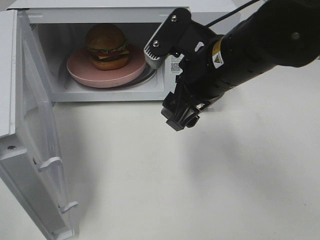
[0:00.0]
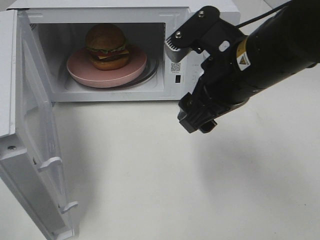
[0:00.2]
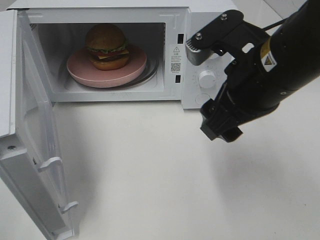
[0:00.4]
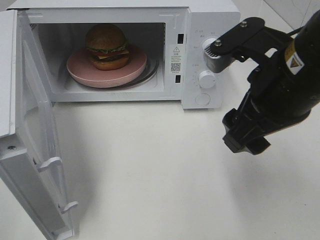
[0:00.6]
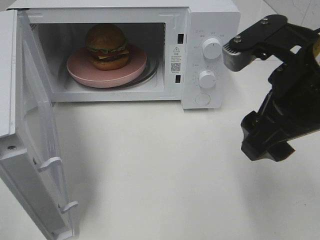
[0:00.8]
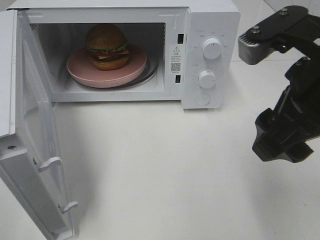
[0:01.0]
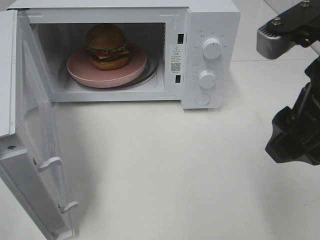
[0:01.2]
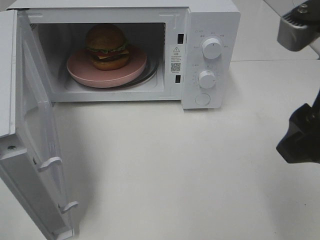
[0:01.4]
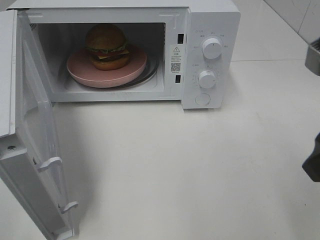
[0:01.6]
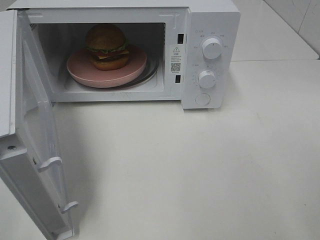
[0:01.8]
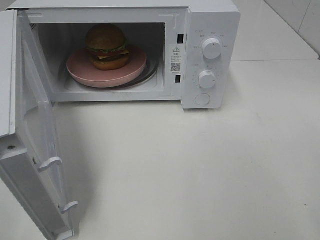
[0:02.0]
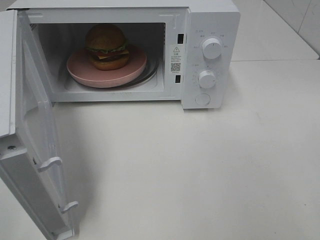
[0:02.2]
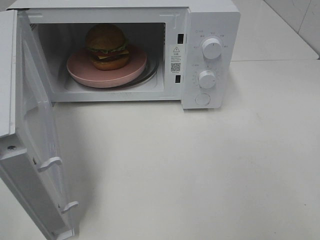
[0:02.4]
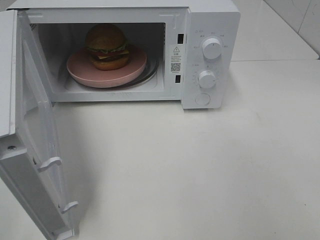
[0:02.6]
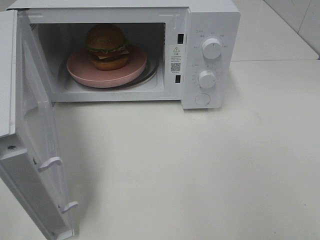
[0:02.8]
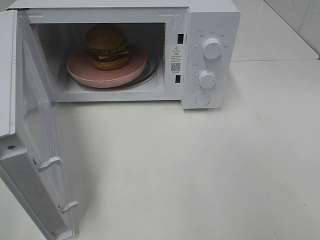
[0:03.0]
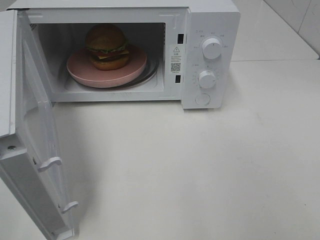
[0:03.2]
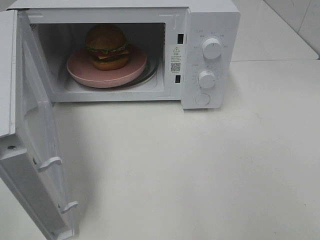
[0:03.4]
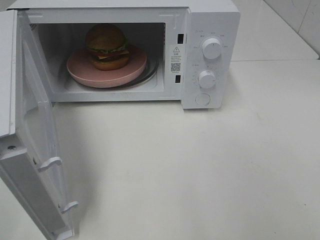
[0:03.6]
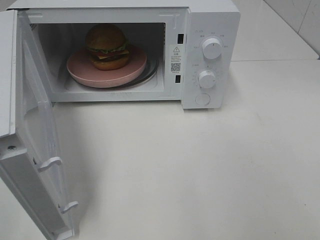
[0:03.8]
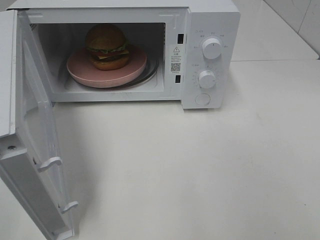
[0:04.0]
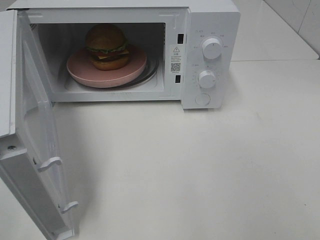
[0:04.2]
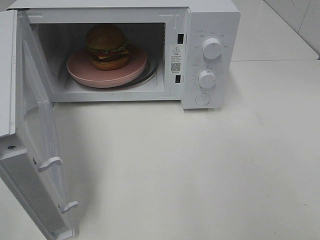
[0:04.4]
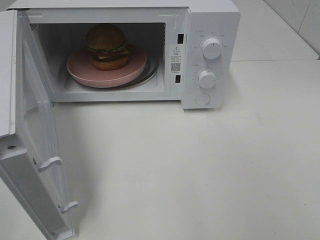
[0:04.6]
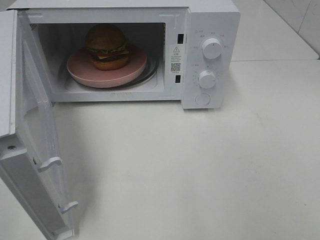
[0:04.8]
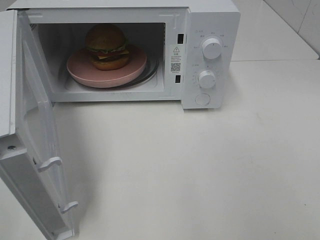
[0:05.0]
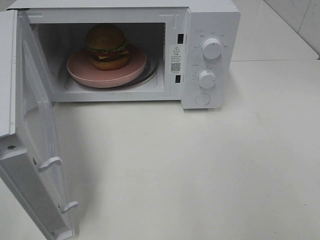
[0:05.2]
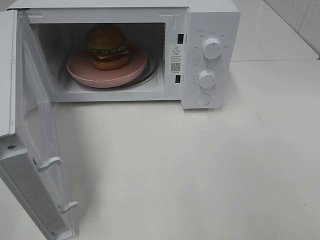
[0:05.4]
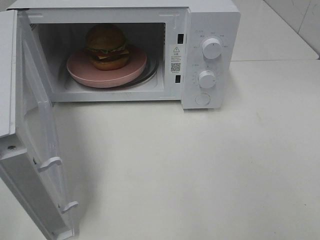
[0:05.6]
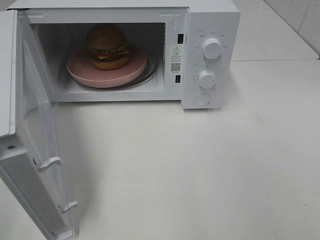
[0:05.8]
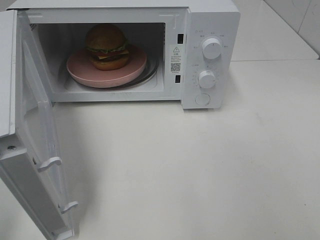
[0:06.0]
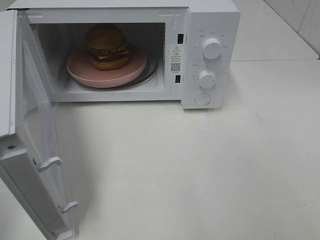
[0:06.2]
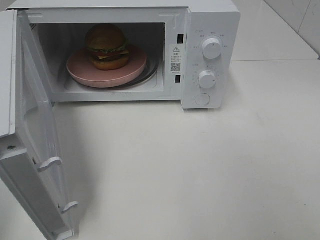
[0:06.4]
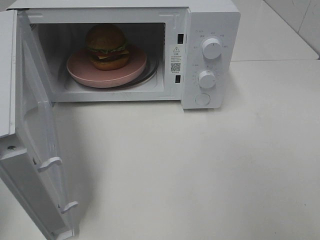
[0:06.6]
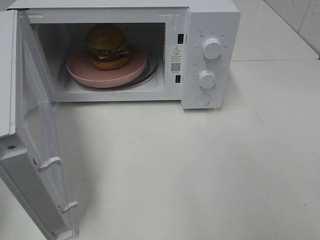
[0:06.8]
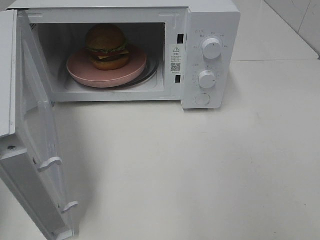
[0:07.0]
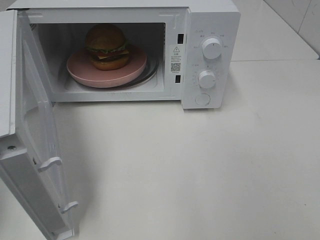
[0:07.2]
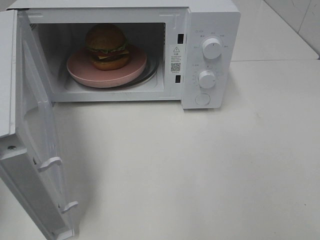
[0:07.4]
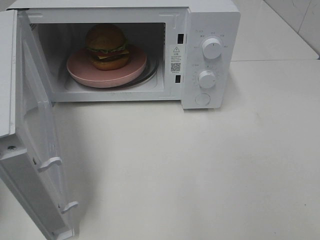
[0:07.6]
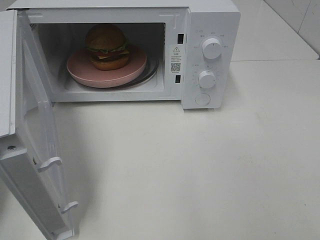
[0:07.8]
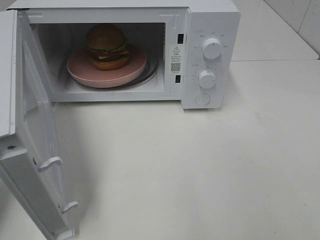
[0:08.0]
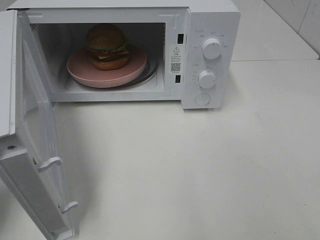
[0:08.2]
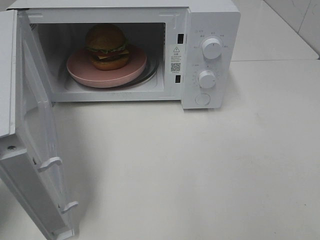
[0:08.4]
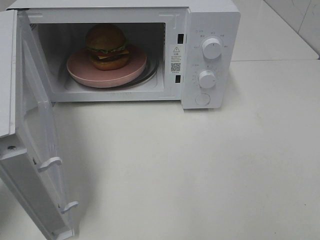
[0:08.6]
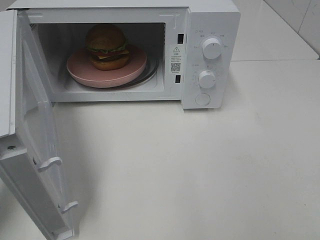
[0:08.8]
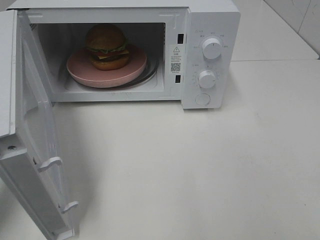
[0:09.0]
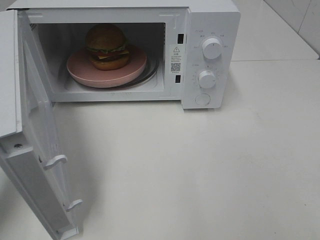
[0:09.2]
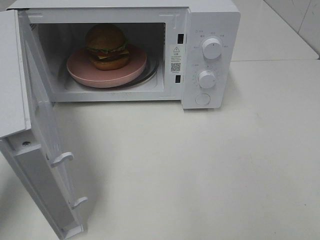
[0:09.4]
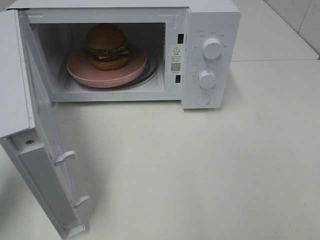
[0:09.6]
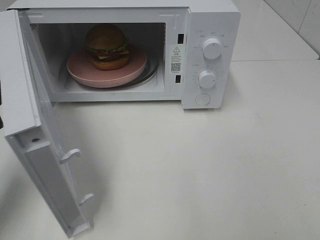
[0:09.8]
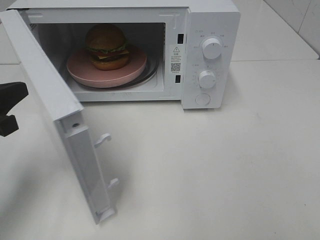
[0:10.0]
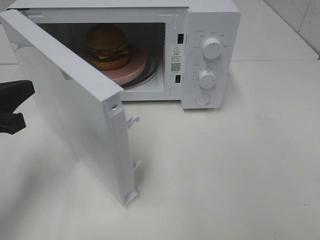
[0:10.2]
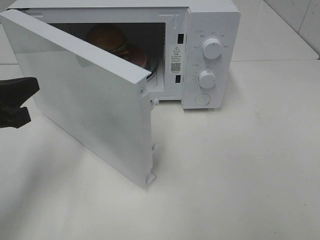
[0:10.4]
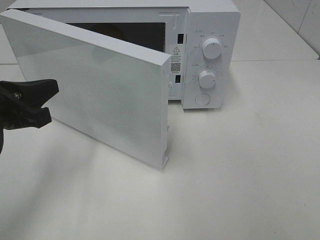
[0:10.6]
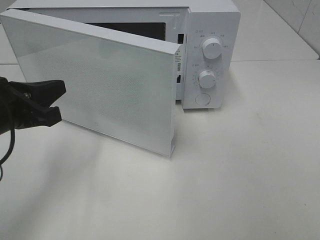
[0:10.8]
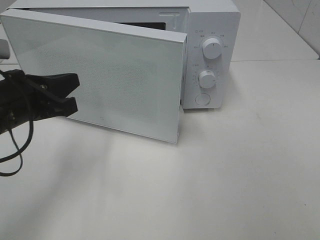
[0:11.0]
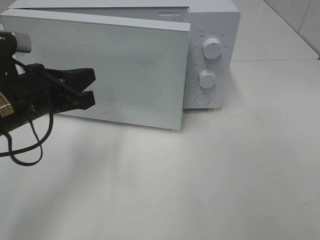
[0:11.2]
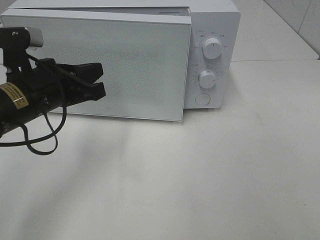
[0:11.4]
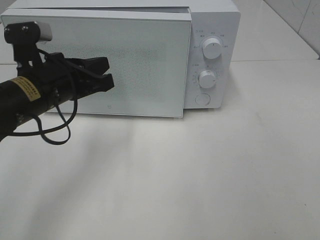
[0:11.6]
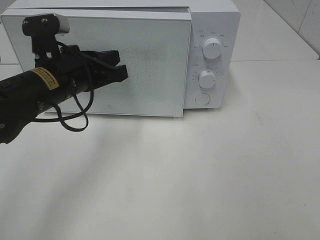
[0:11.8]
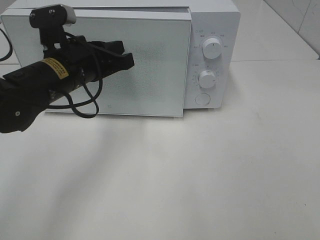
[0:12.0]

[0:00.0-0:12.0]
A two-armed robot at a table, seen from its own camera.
Task of the whole recording: Heat the burger.
0:00.0 to 0:01.6: The right gripper travels to the right, backward and upward by about 20 cm.
0:01.6 to 0:03.0: The right gripper is displaced backward and to the right by approximately 15 cm.
0:07.6 to 0:09.0: The left gripper changes place by approximately 5 cm.
0:10.4 to 0:12.0: The left gripper is displaced to the right and forward by roughly 15 cm.

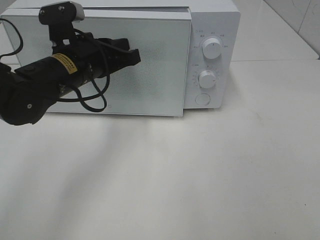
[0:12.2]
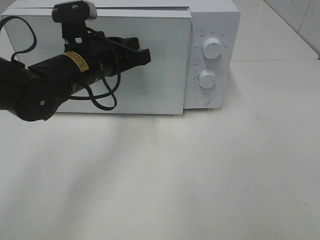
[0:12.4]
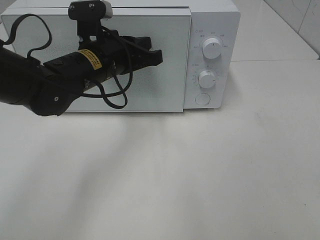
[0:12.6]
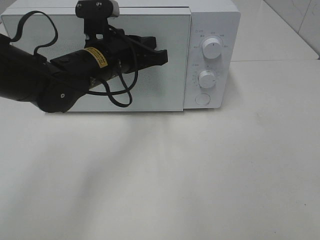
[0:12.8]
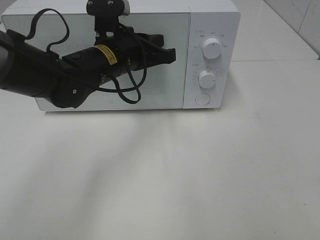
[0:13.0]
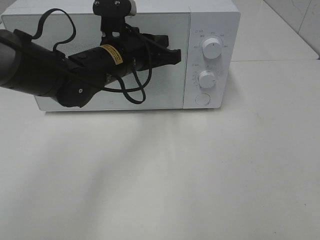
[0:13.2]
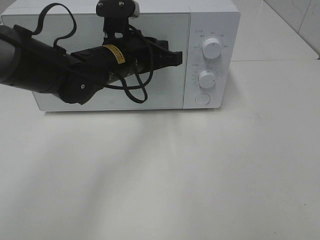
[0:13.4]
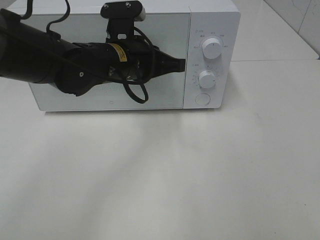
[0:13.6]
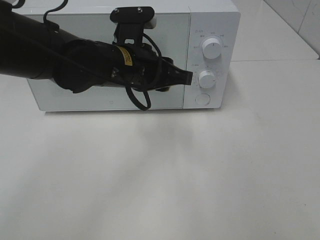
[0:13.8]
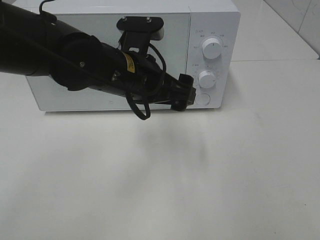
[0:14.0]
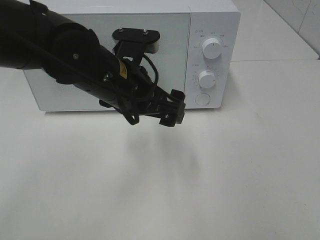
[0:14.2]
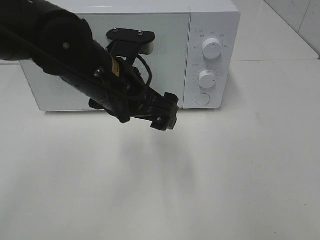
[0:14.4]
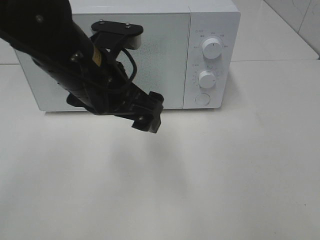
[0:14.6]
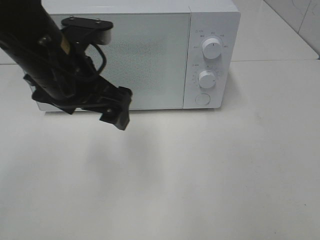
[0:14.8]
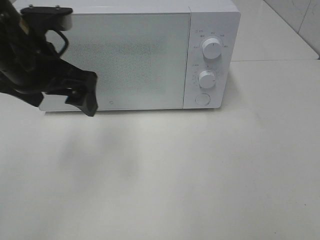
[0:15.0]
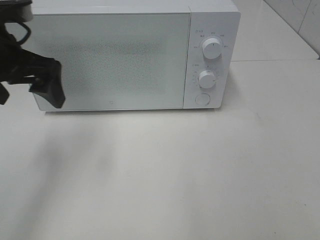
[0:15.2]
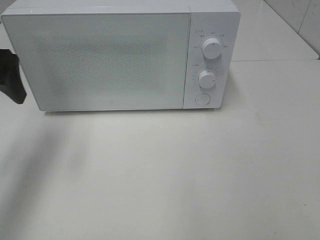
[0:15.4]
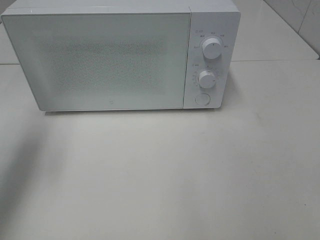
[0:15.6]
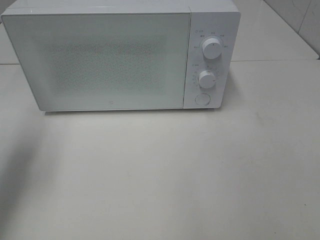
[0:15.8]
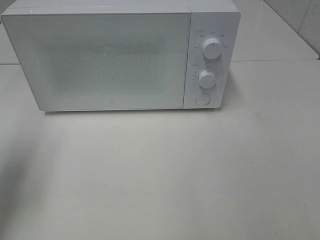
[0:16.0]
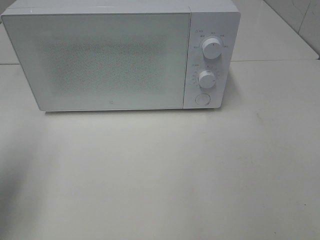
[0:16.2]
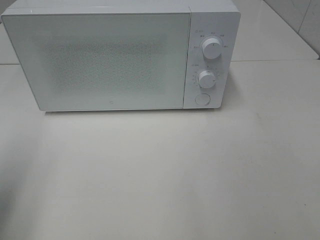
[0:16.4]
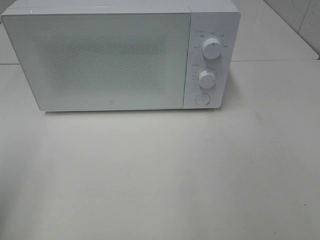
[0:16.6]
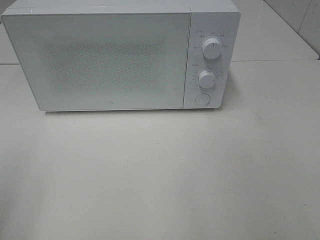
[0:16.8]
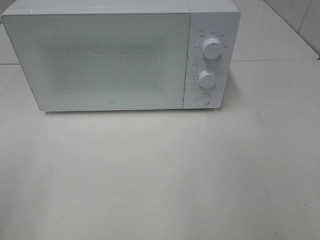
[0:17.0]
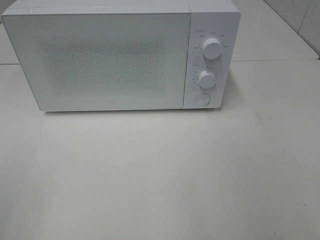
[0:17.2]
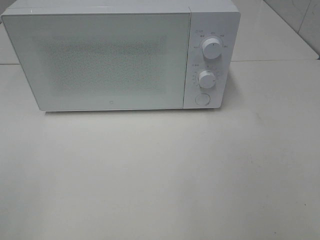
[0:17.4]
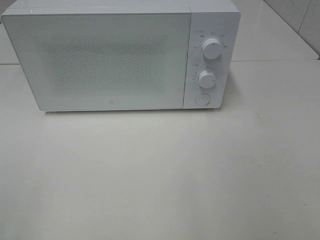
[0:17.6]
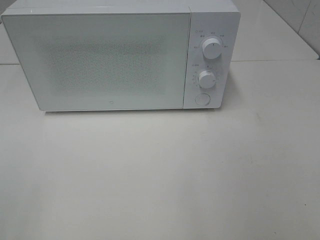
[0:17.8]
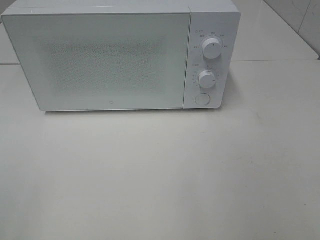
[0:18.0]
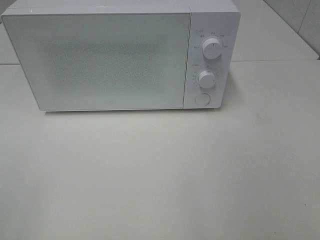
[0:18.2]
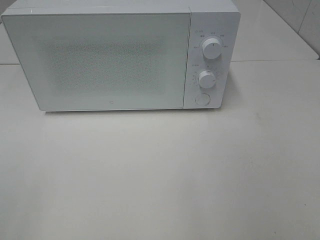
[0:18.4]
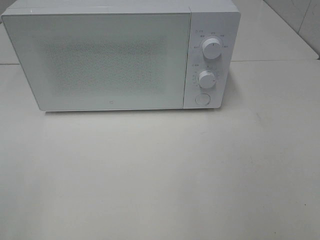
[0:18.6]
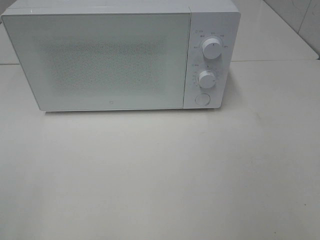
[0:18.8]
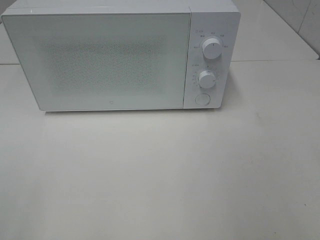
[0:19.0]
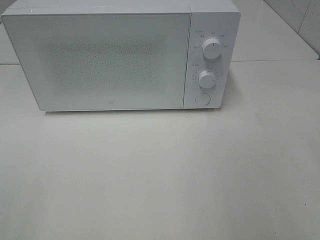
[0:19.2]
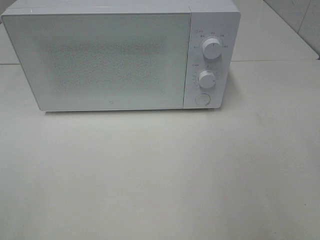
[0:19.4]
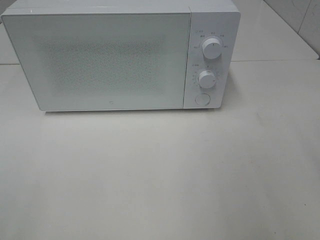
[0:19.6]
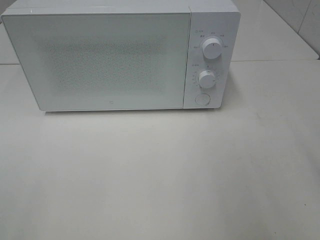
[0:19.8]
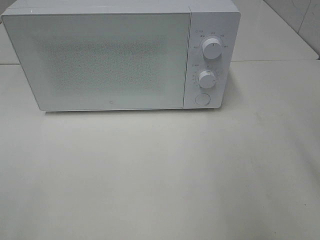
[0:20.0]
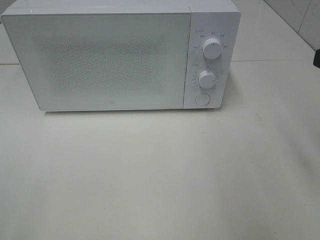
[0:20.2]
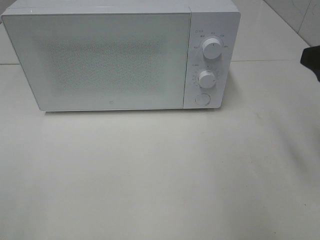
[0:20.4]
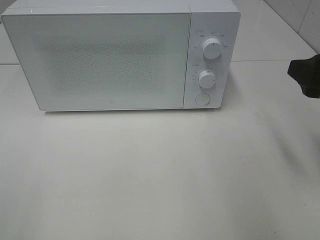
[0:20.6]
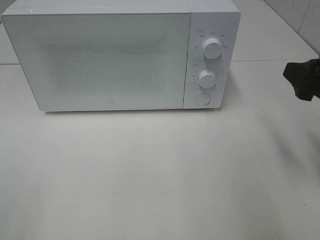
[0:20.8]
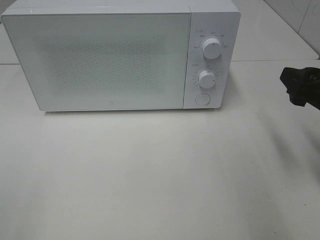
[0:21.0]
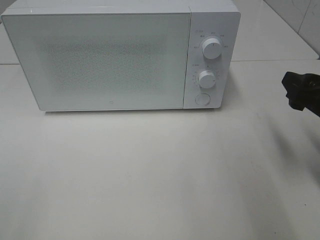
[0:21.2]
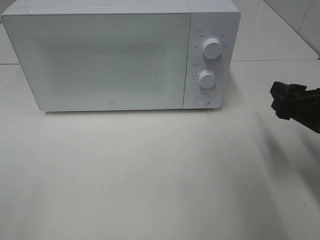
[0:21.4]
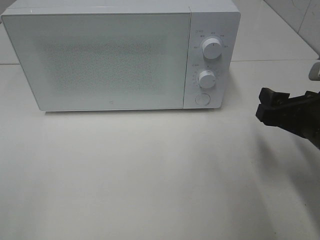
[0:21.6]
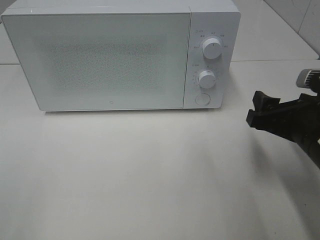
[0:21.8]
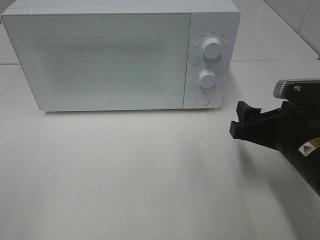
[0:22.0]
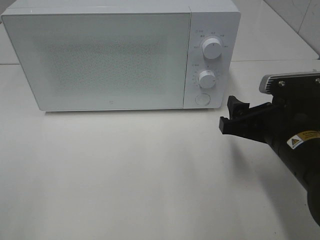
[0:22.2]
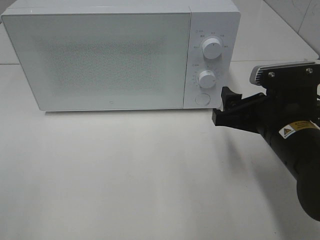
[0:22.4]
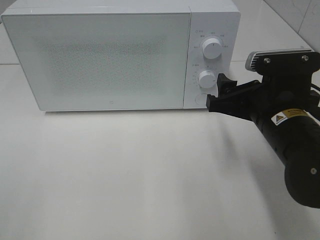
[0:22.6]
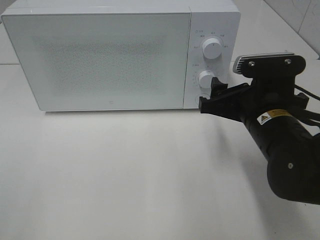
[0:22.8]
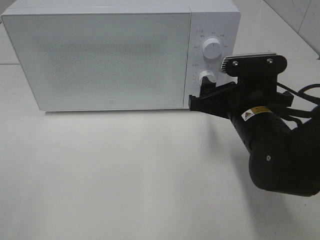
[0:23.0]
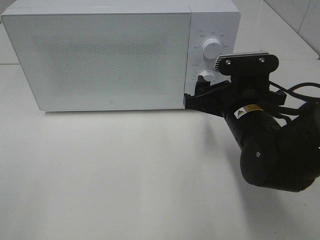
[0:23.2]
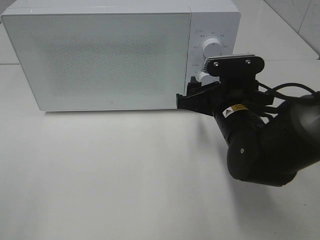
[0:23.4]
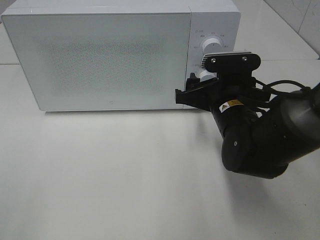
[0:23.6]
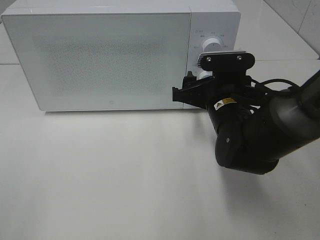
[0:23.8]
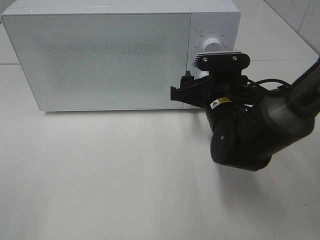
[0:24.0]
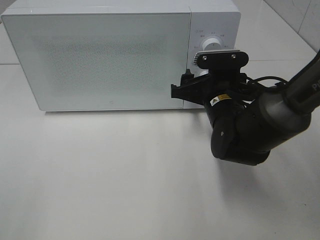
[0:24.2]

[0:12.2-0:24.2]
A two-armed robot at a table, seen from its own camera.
Task of the whole recording: Heat the burger.
0:12.2 to 0:13.8: The left gripper goes approximately 10 cm to the right, and opens up.
0:13.8 to 0:15.2: The left gripper is displaced to the left by about 20 cm, and opens.
0:15.2 to 0:16.6: The left gripper is displaced backward and to the left by roughly 20 cm.
0:19.8 to 0:21.2: The right gripper is displaced downward and forward by some 15 cm.
0:21.2 to 0:22.6: The right gripper is displaced to the left by about 10 cm.
0:22.6 to 0:24.2: The right gripper moves forward, approximately 10 cm.
